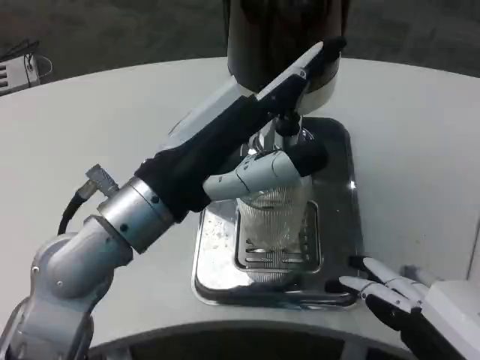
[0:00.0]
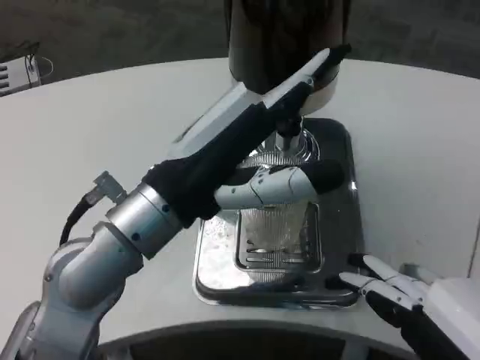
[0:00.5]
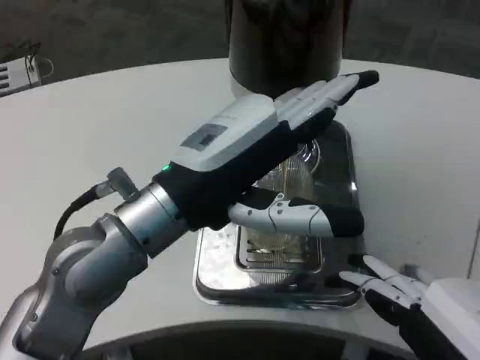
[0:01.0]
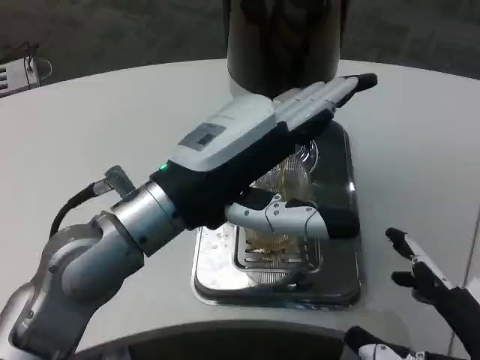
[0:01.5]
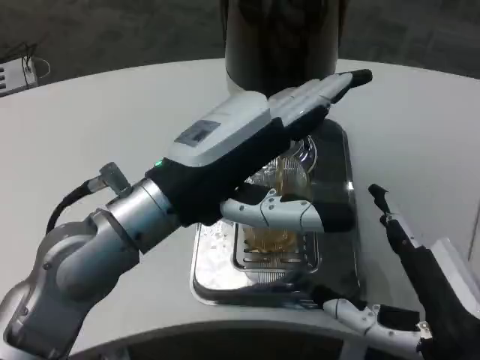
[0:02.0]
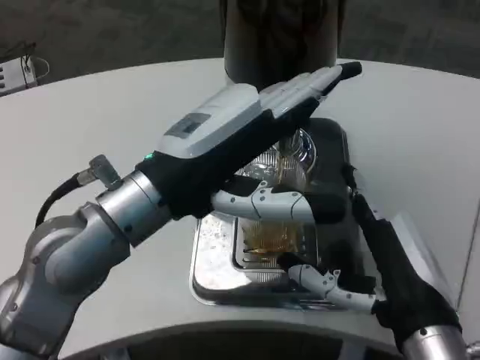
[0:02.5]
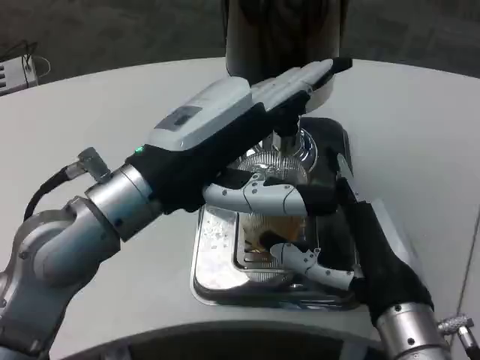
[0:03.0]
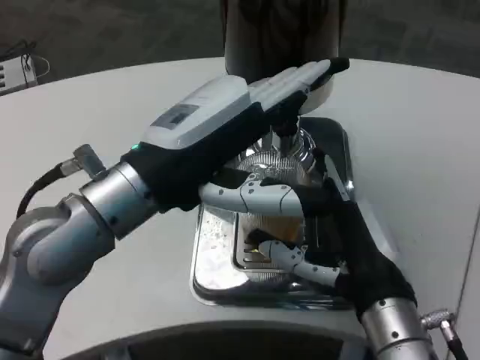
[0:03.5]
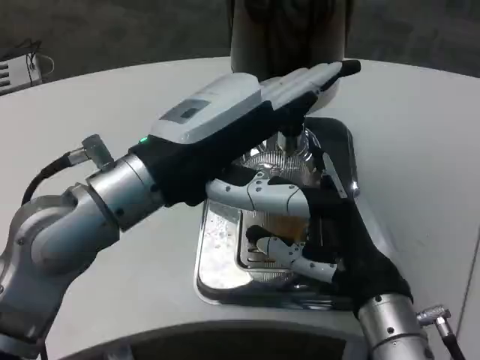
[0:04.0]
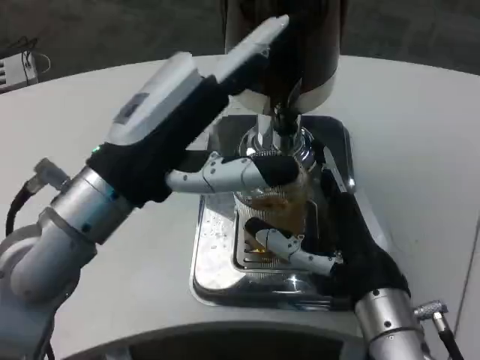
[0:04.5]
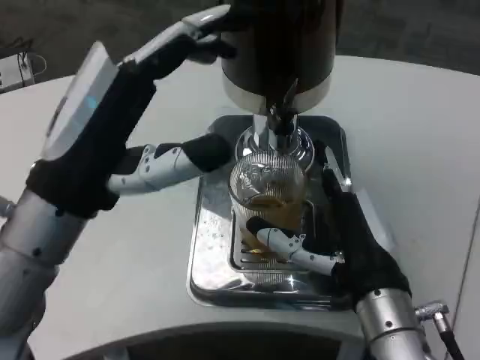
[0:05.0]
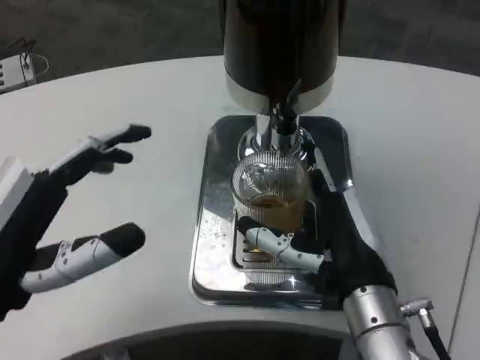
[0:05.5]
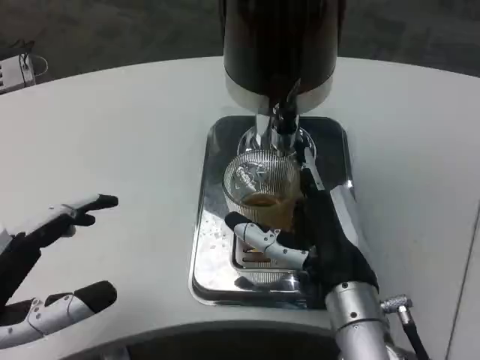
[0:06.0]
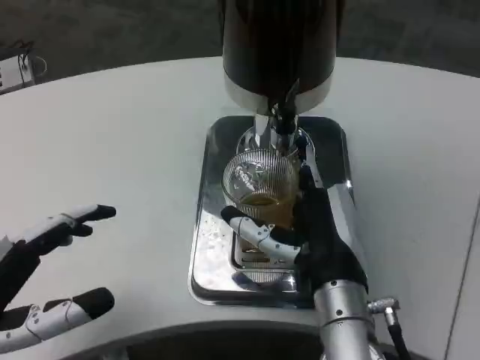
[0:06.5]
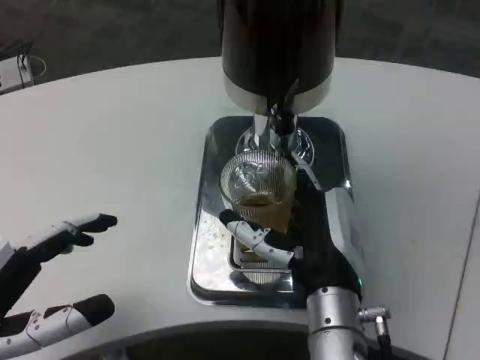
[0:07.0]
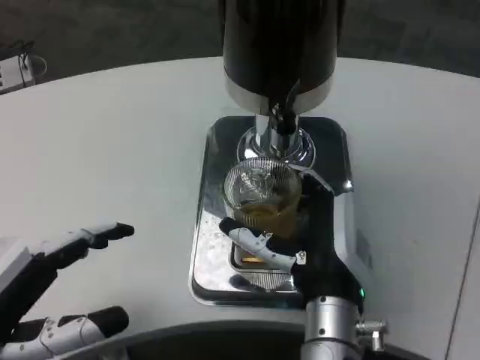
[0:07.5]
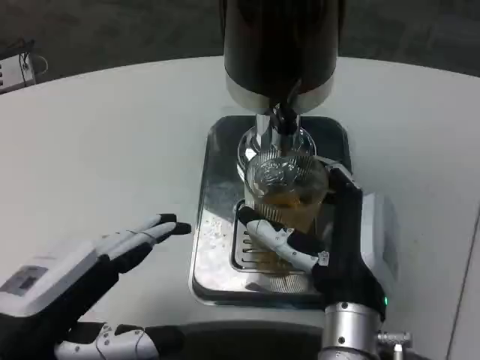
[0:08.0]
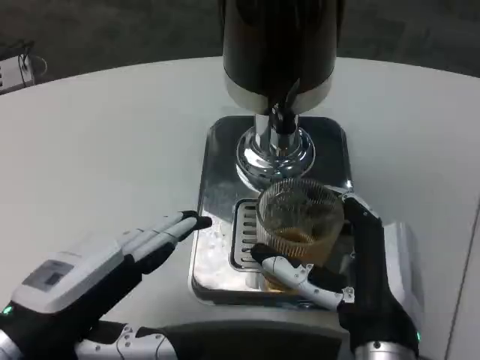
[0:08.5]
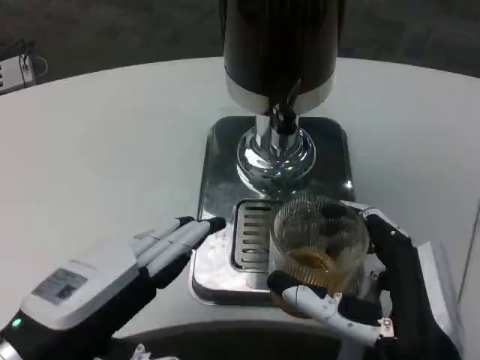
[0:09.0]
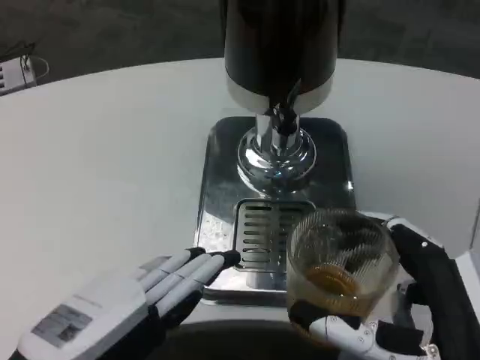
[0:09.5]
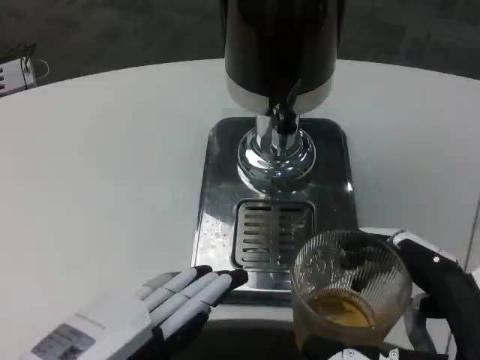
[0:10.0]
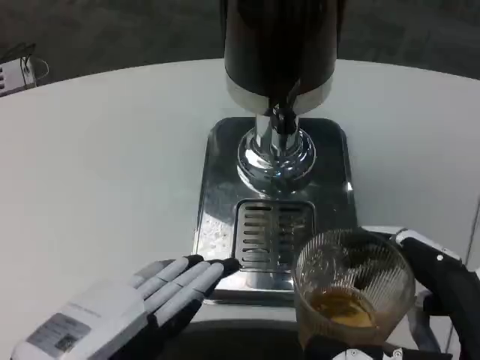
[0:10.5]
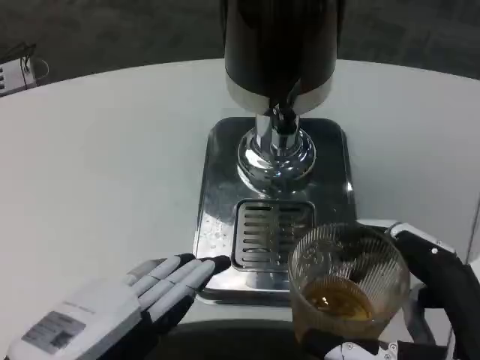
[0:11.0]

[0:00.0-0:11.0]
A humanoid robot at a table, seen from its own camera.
Task of the whole recording: Grasp the cup under the faucet to collect the drink, then remove the cup.
0:00.0 to 0:02.0: The right hand heads forward and downward, covering roughly 10 cm.
0:02.0 to 0:03.5: The right hand is displaced forward and to the left by some 10 cm.
0:03.5 to 0:05.5: The left hand heads to the left, downward and backward, covering about 15 cm.
0:05.5 to 0:07.5: The right hand travels to the left by about 5 cm.
0:07.5 to 0:09.0: The left hand moves some 5 cm, while the right hand heads backward and to the right, covering some 10 cm.
0:09.0 to 0:11.0: The right hand is displaced to the right by some 5 cm.

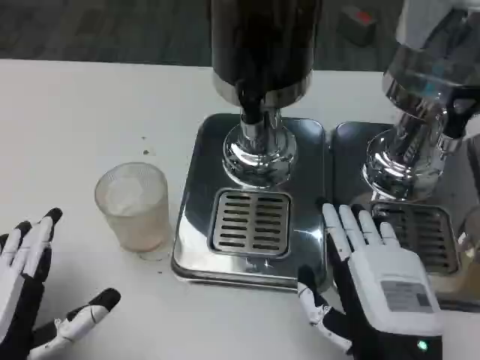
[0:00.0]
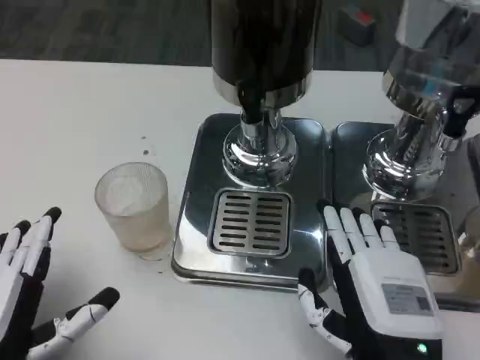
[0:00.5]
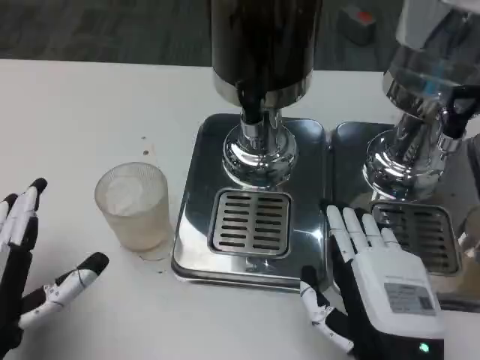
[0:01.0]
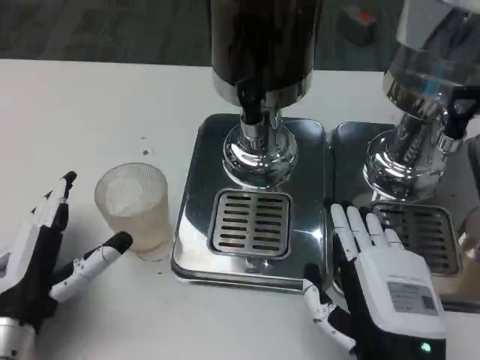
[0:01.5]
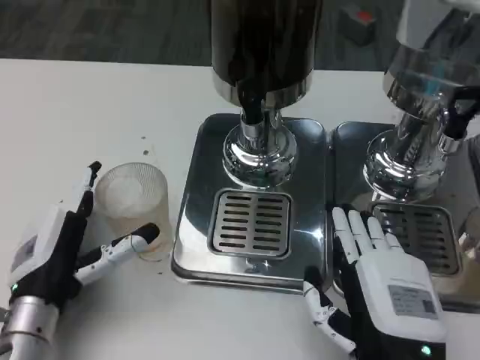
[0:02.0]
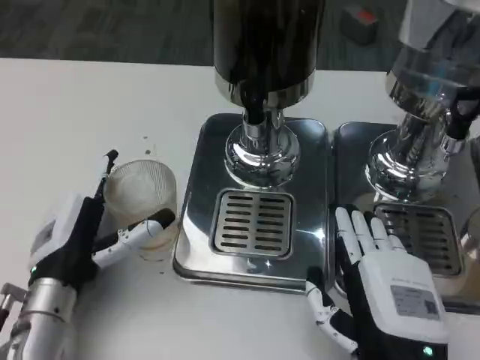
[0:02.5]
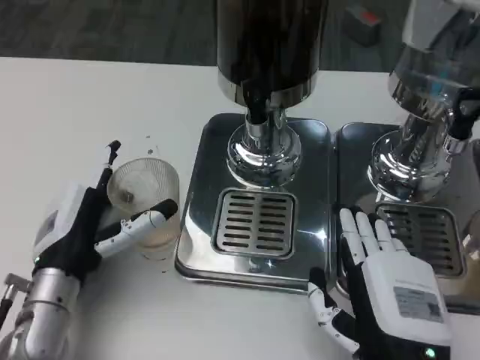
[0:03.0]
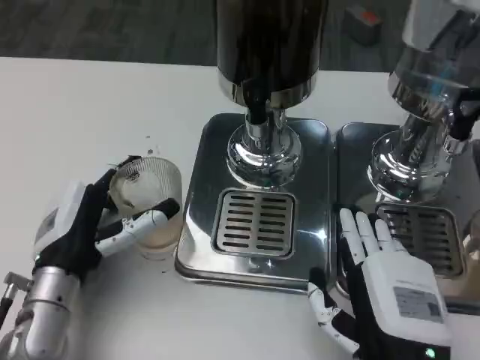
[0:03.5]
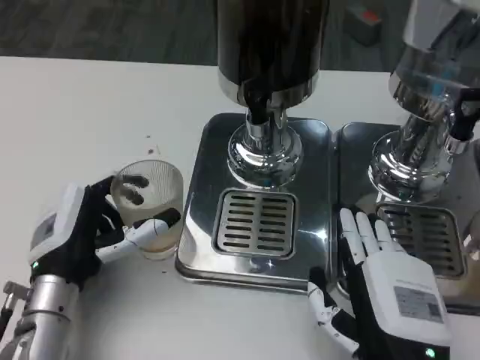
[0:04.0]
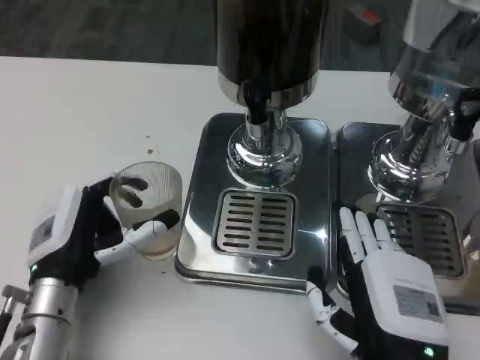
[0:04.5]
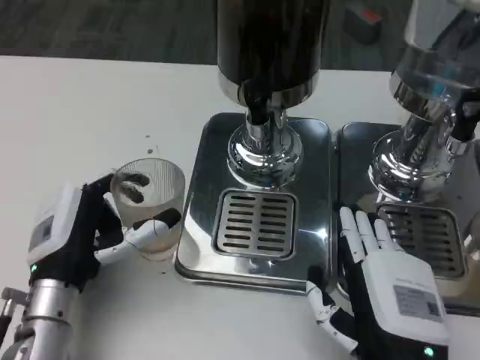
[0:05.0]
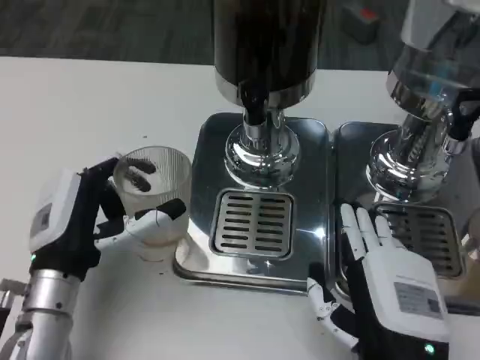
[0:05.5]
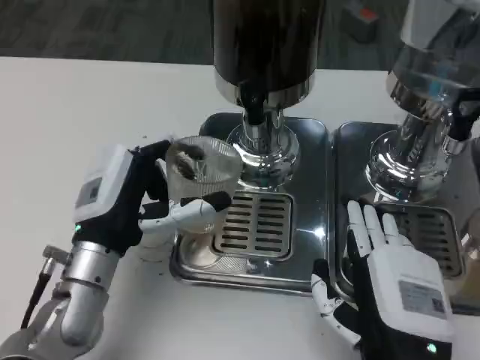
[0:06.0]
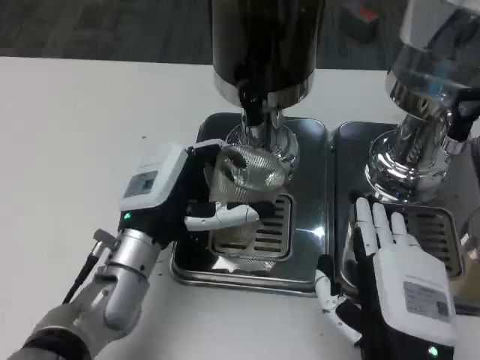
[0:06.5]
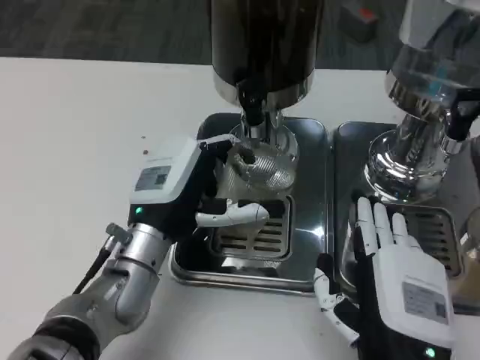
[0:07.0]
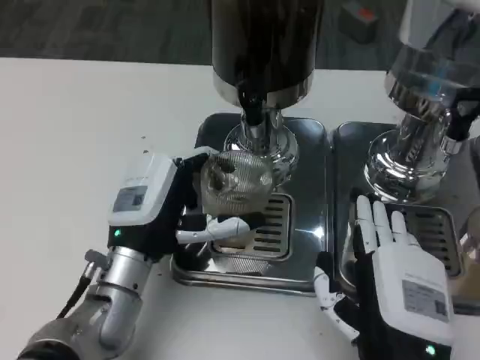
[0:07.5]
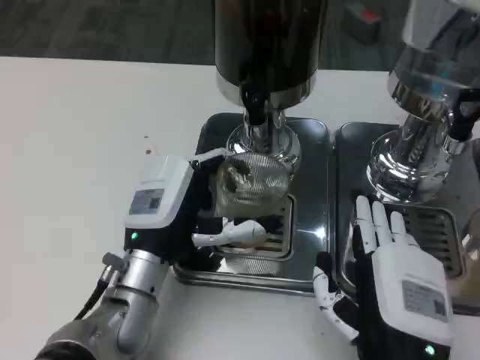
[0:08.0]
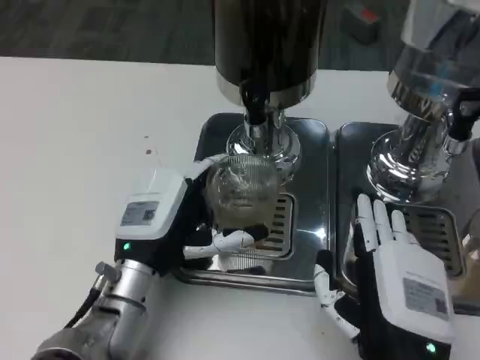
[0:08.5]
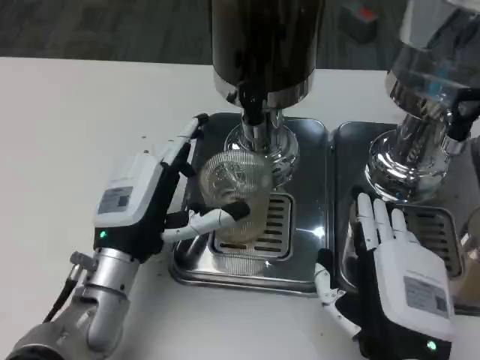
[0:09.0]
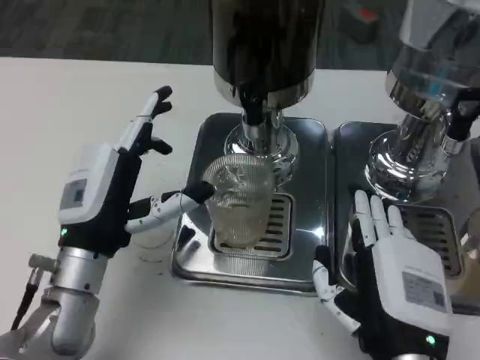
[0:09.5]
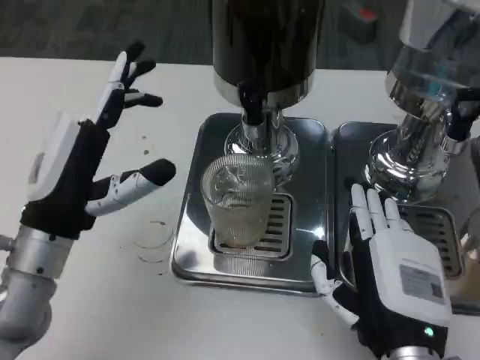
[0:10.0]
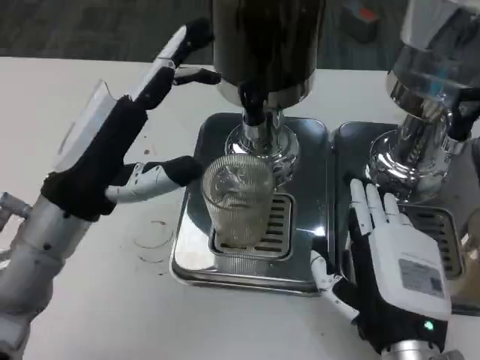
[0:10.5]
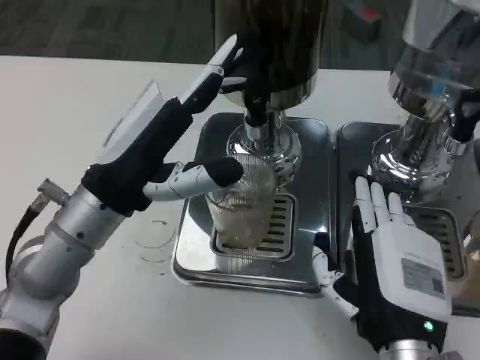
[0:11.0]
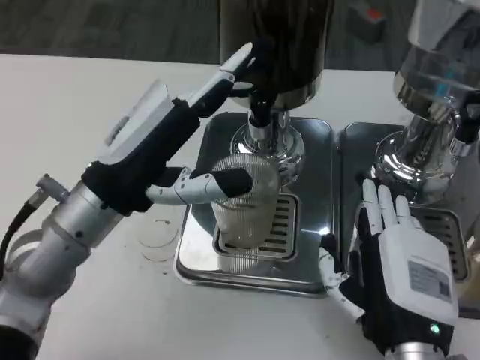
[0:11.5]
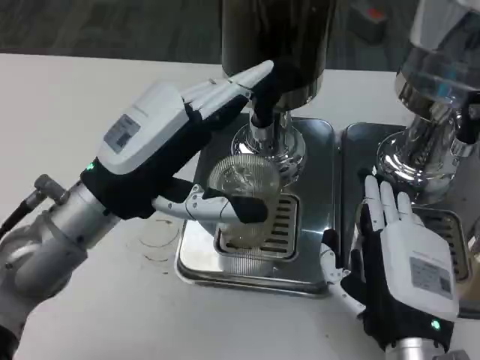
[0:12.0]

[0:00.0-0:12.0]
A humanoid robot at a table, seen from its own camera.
Task of the whole recording: Grasp the cup under the faucet to collect the drink, then remove the cup.
0:00.0 to 0:02.0: The left hand travels forward by roughly 10 cm.
0:08.0 to 0:10.0: The left hand heads to the left and upward, covering some 10 cm.
0:10.0 to 0:12.0: The left hand shifts by about 5 cm.

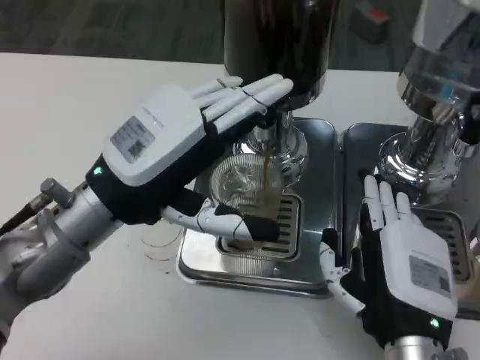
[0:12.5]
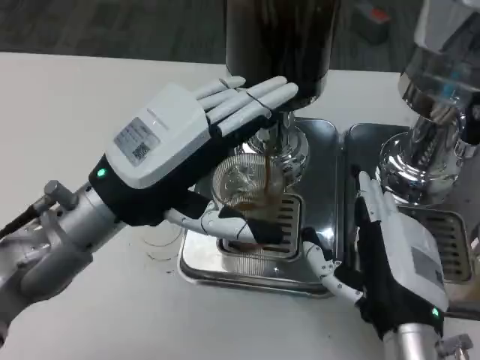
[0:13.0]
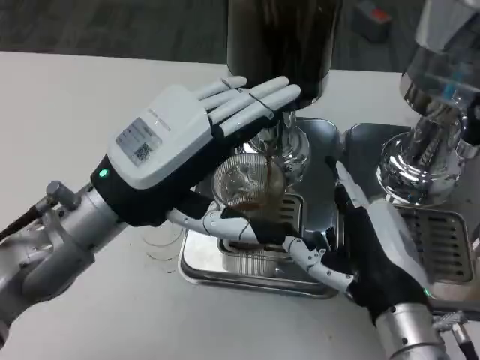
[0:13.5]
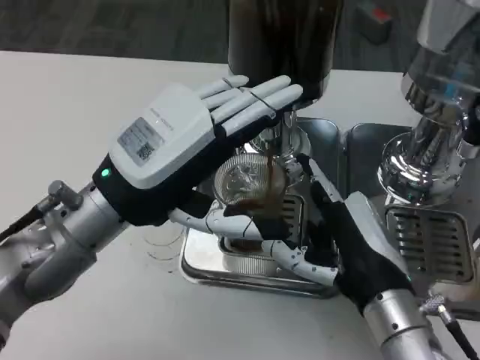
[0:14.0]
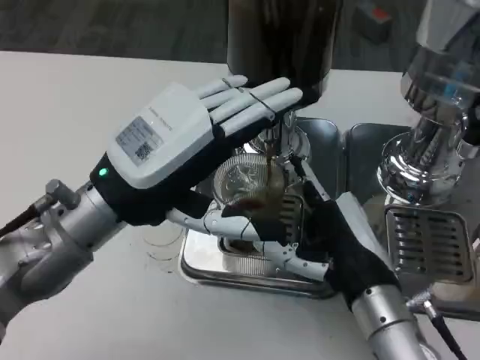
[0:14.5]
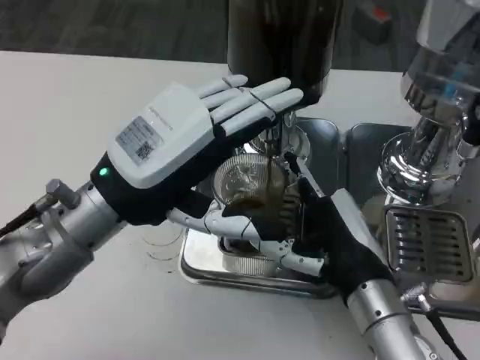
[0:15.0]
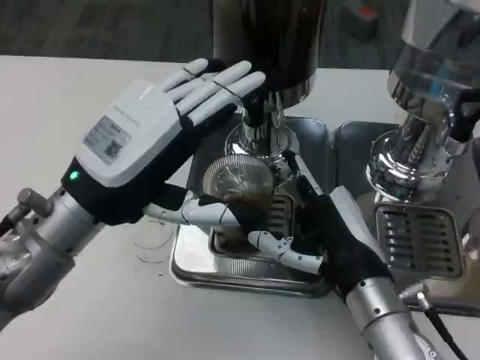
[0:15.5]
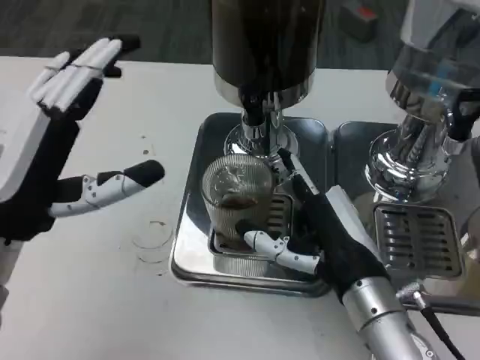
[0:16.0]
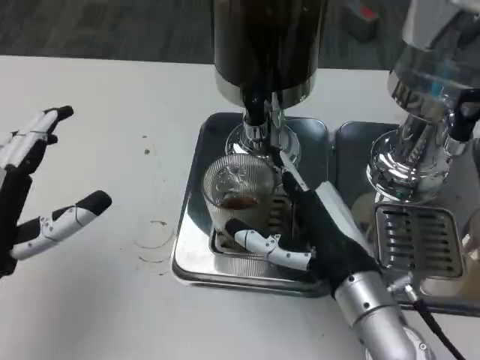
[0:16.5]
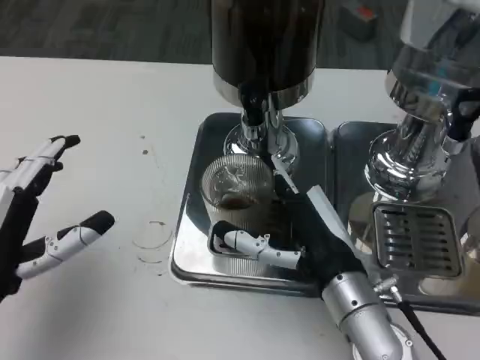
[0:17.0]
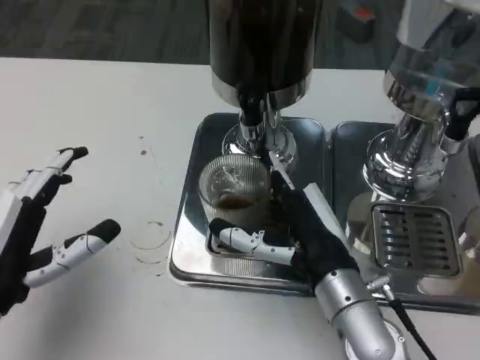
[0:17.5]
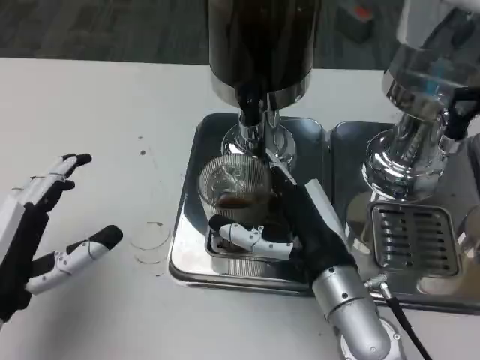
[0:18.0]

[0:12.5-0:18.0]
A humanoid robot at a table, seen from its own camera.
Task of the whole recording: Grasp the cup under the faucet to collect the drink, then remove the cup.
0:14.5 to 0:16.0: The left hand is displaced to the left by some 5 cm.
0:16.0 to 0:18.0: The left hand travels downward by approximately 5 cm.
